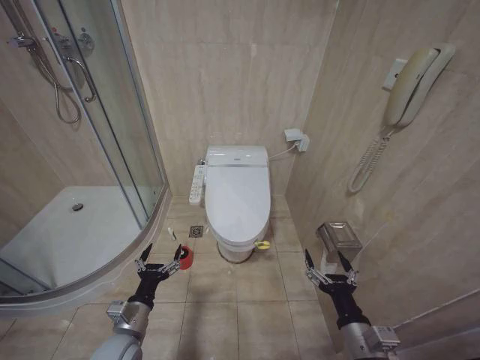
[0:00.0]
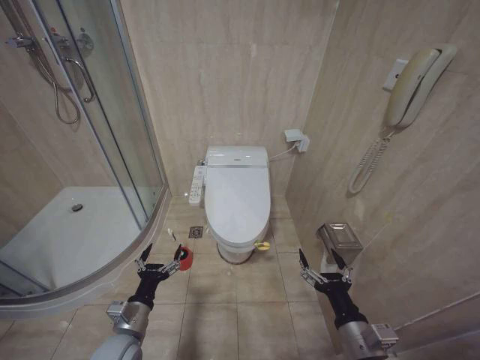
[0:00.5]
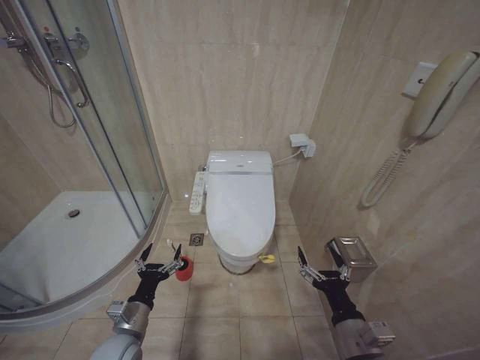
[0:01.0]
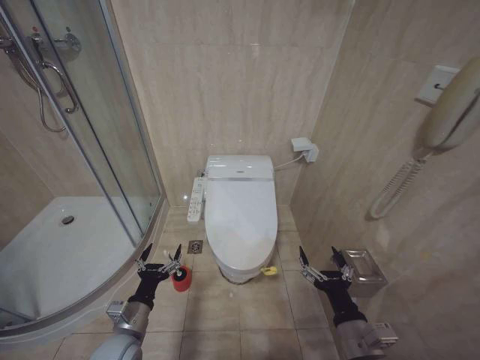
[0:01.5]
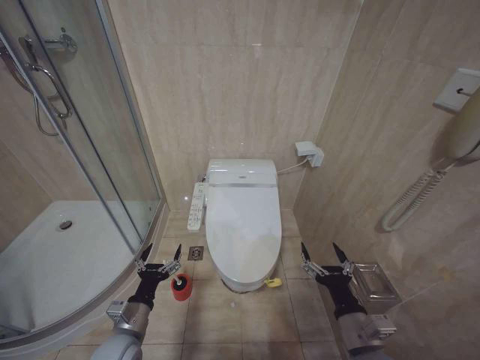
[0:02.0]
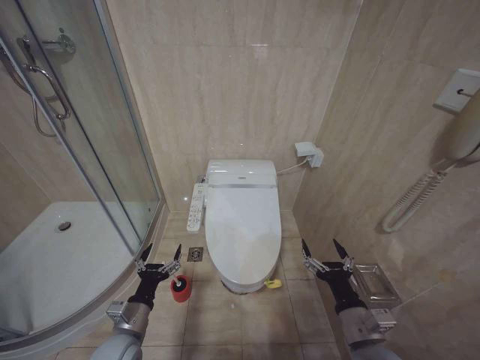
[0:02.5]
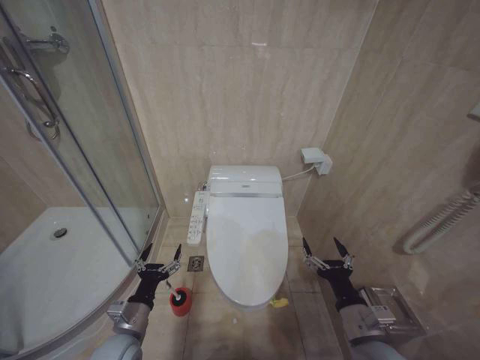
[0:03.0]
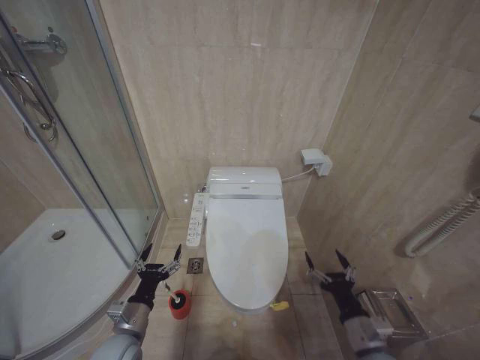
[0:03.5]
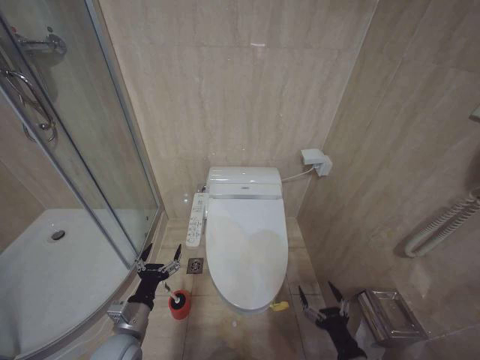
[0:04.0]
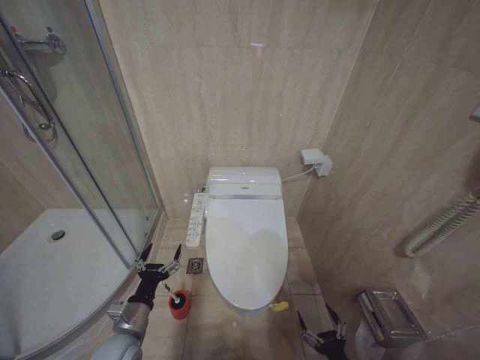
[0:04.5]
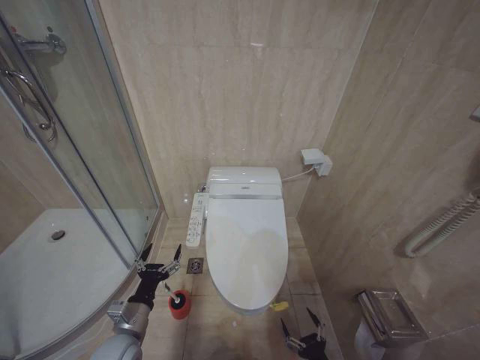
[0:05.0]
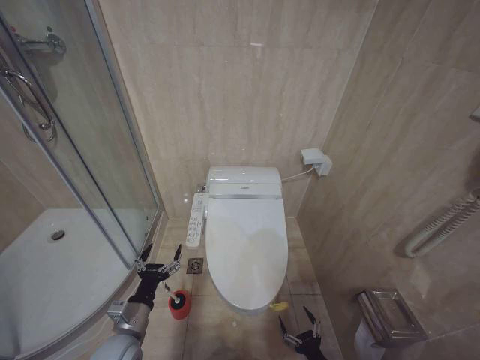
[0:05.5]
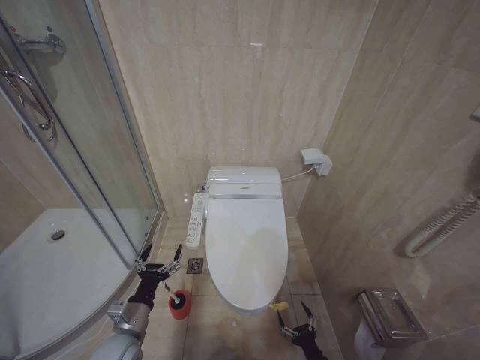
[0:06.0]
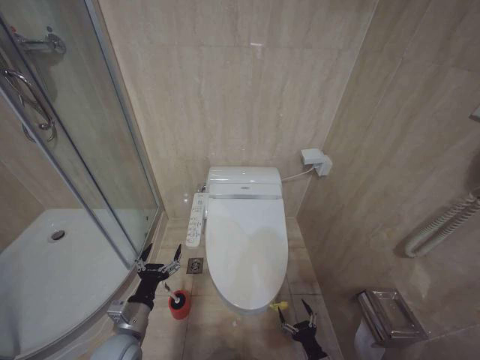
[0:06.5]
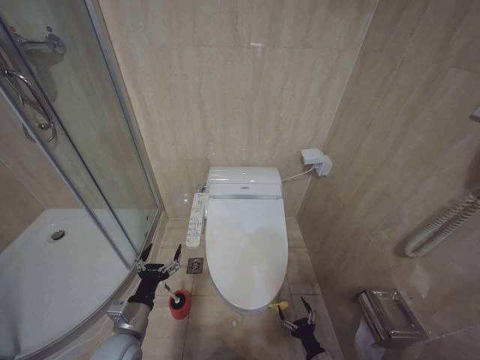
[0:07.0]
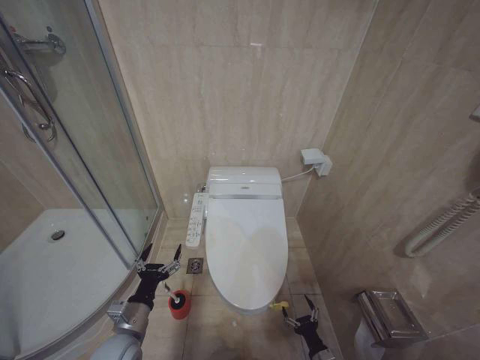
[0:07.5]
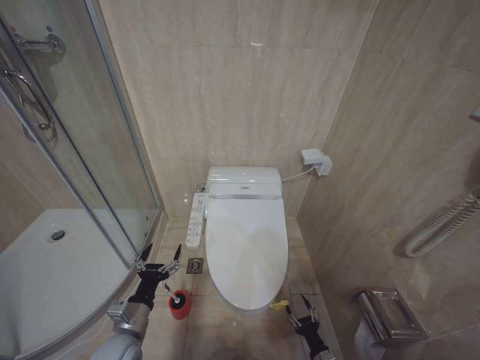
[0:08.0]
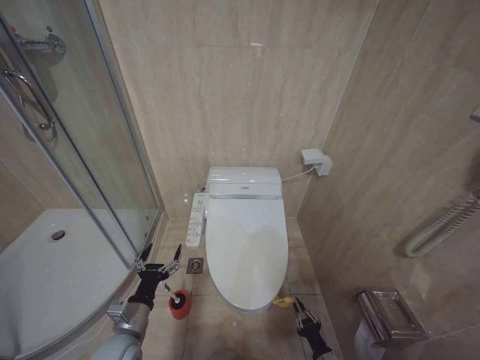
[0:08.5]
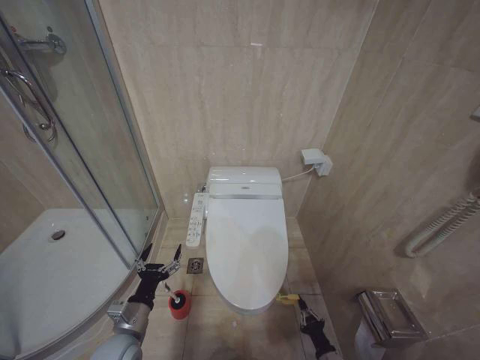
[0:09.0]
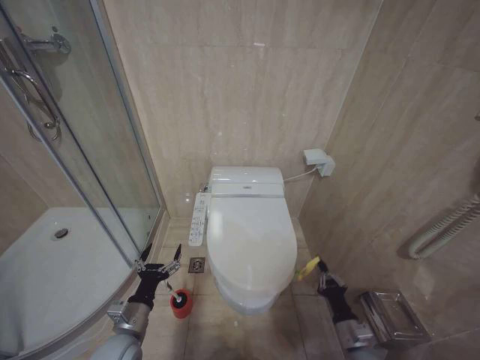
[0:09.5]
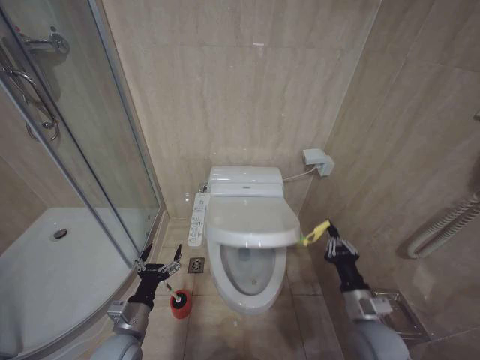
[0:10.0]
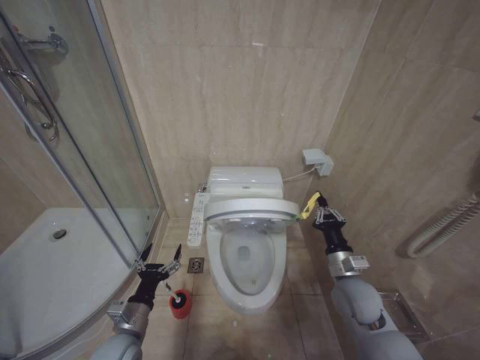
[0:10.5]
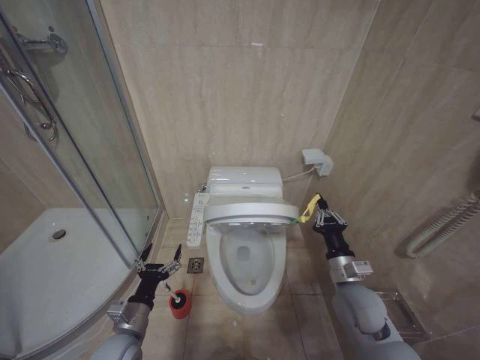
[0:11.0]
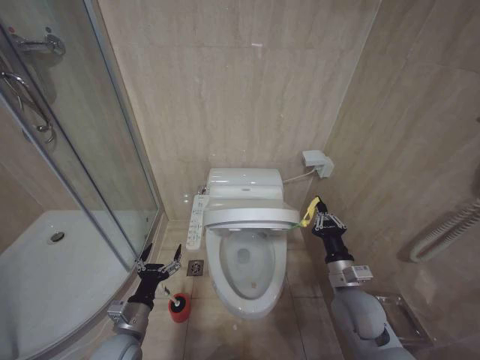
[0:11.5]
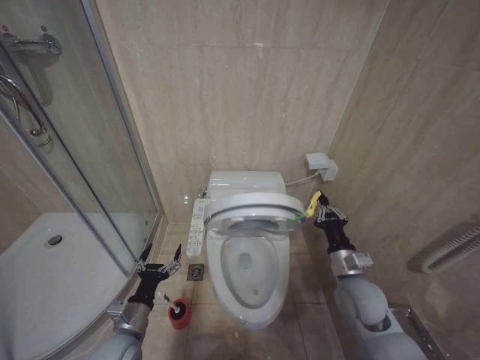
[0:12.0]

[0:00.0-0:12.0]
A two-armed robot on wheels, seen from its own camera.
Task of the whole recording: Open the toilet lid, clean the toilet bowl with a toilet brush, close the toilet lid, and flush.
0:02.0 to 0:04.0: The right gripper moves downward, some 10 cm.
0:04.0 to 0:06.0: The right gripper is displaced downward by roughly 20 cm.
0:08.0 to 0:10.0: The right gripper heads upward, covering some 25 cm, and closes.
0:10.0 to 0:12.0: The right gripper moves forward and upward, approximately 10 cm.

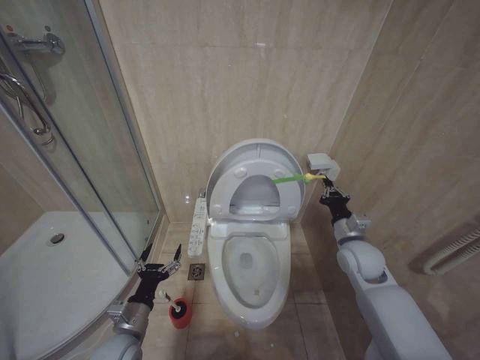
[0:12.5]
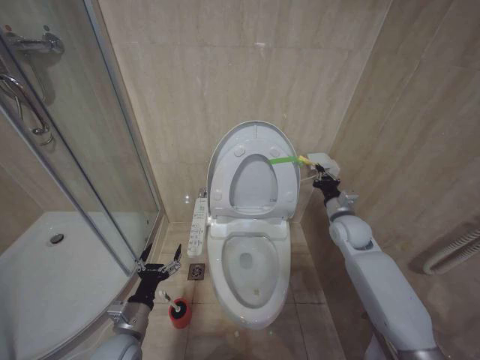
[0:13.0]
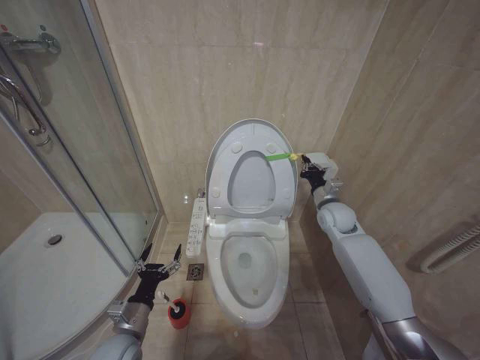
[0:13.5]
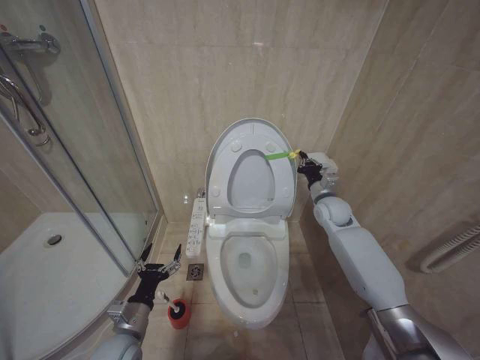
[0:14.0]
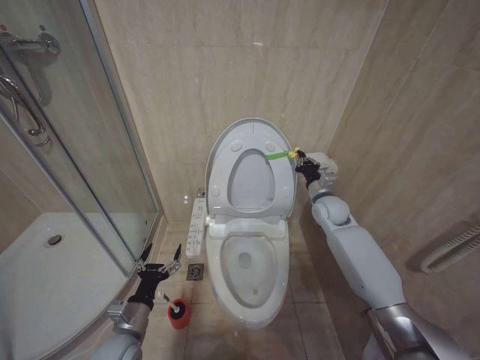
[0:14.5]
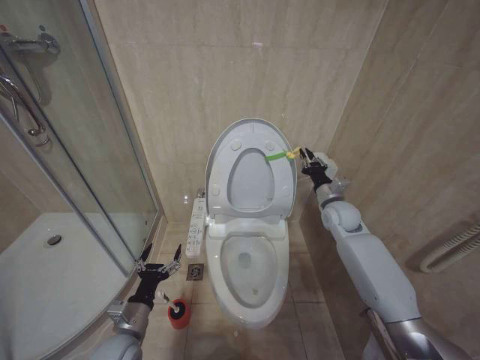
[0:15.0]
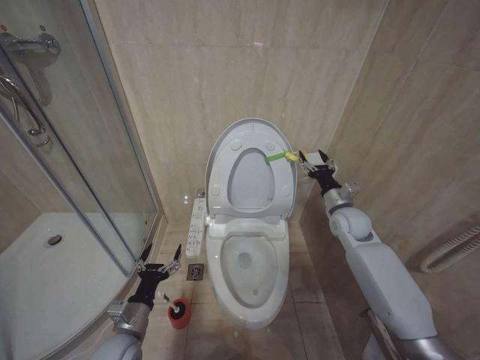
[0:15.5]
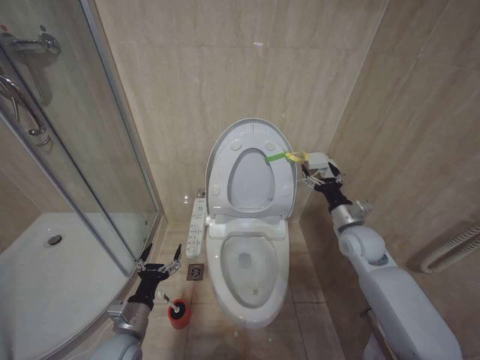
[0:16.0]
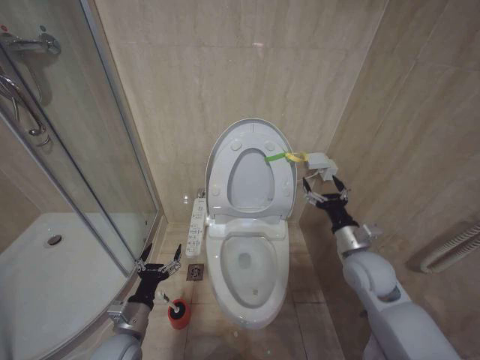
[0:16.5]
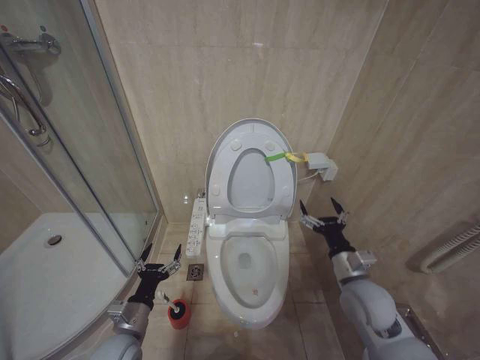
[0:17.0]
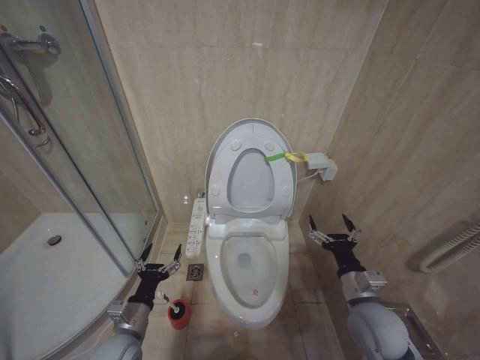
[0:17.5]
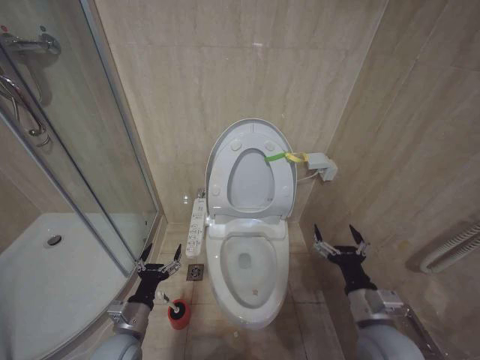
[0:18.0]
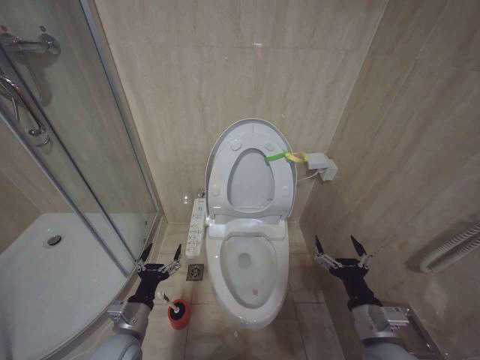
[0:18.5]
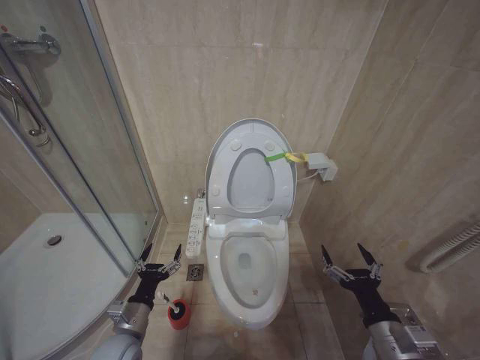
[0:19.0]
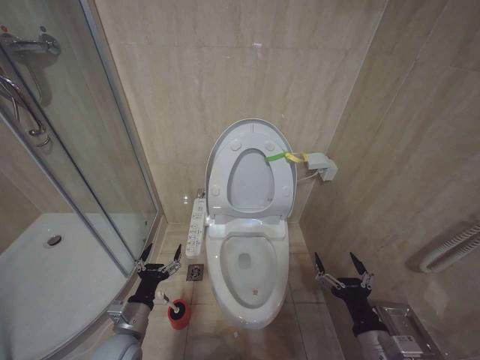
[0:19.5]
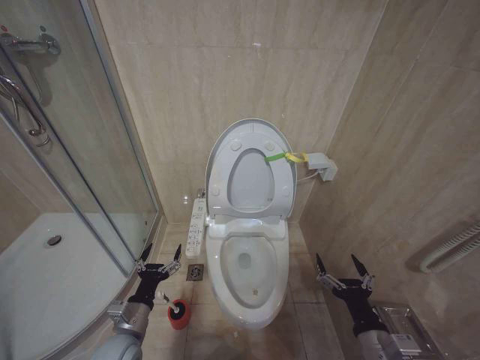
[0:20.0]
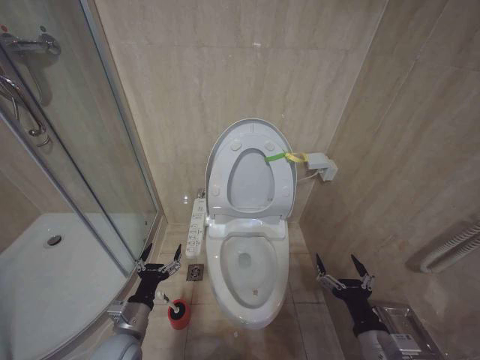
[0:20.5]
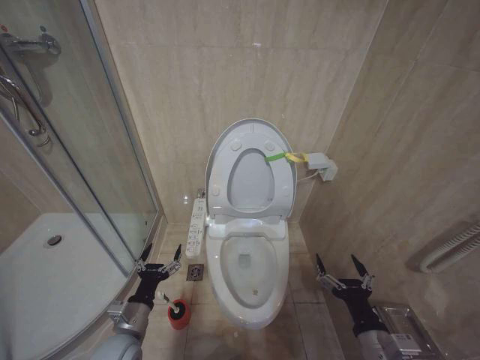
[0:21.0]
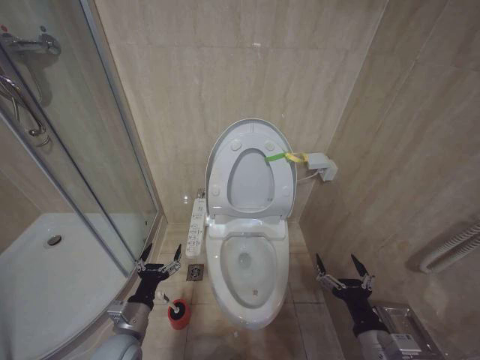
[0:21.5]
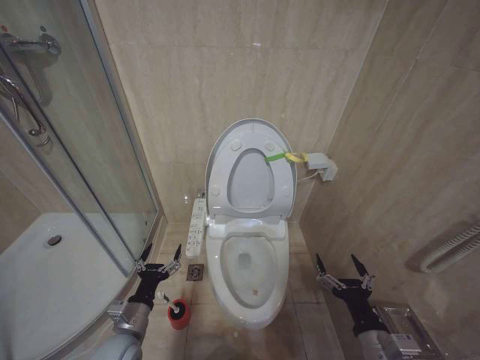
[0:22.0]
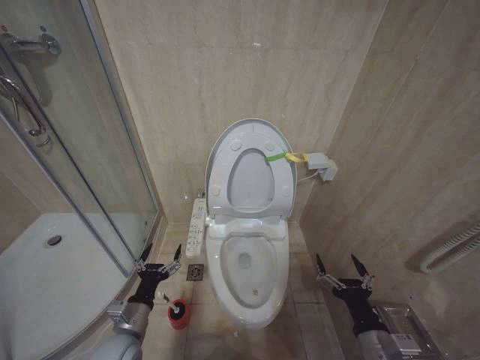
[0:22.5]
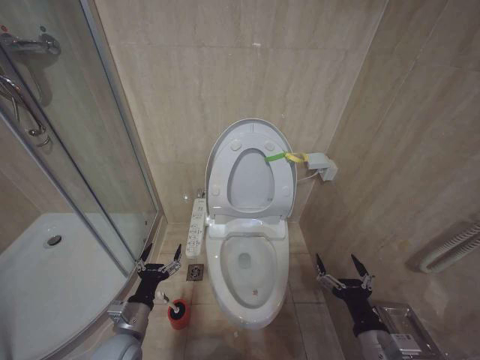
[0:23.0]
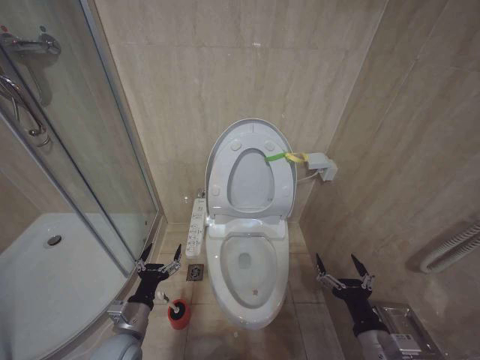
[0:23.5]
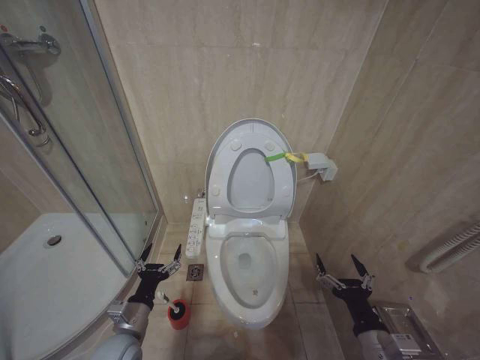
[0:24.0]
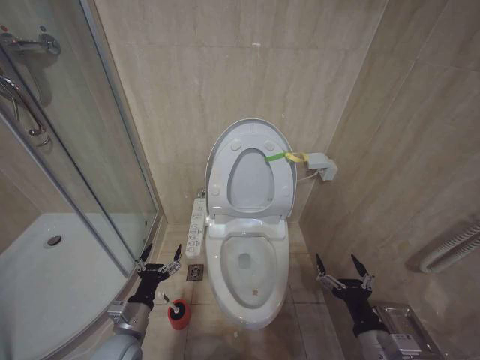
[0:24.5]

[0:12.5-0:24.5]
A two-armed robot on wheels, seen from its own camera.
Task of the whole recording: Open the toilet lid, clean the toilet bowl with a toilet brush, close the toilet lid, and flush.
0:12.5 to 0:14.5: The right gripper is displaced forward by approximately 15 cm.
0:14.5 to 0:16.5: The right gripper shifts some 15 cm backward, and opens its fingers.
0:16.5 to 0:18.5: The right gripper moves backward and downward, roughly 20 cm.
0:18.5 to 0:20.5: The grippers stay close to where they were, moving slightly.
0:20.5 to 0:24.5: Neither gripper changes place.

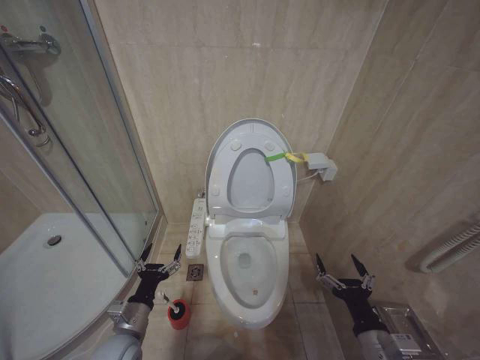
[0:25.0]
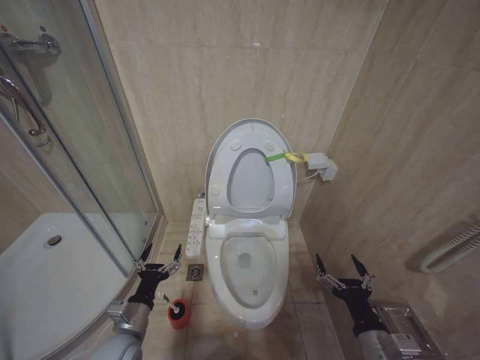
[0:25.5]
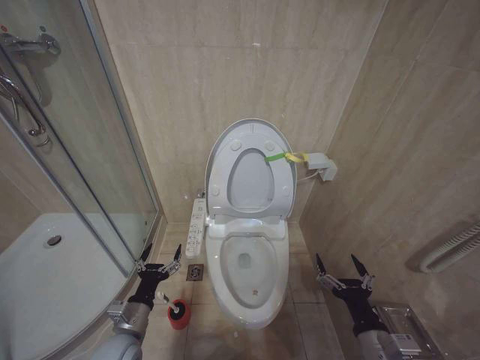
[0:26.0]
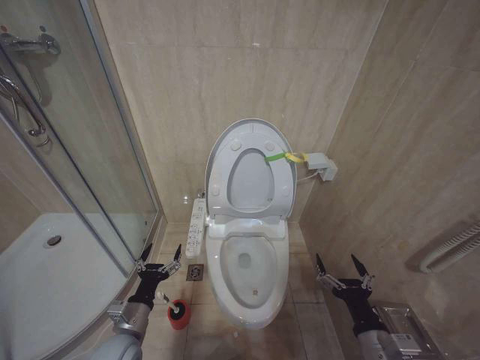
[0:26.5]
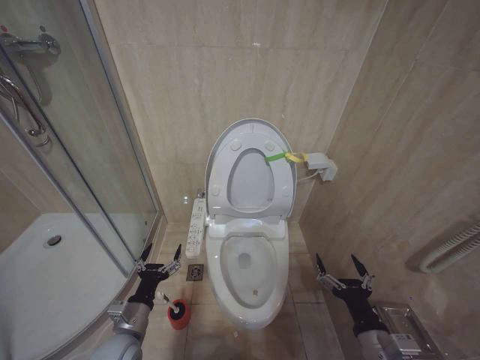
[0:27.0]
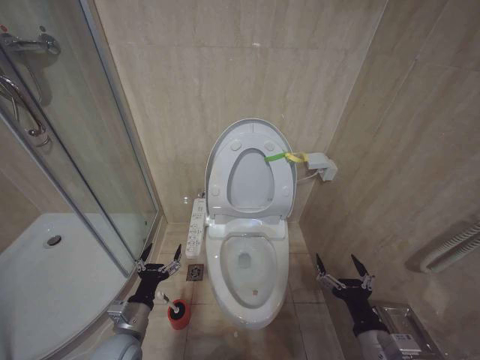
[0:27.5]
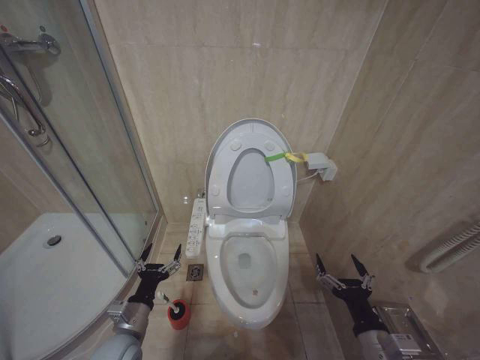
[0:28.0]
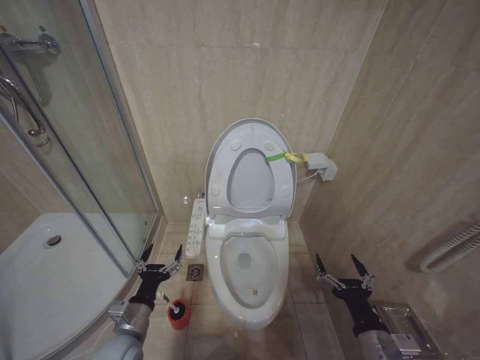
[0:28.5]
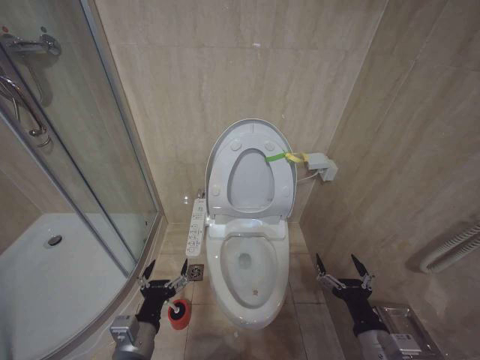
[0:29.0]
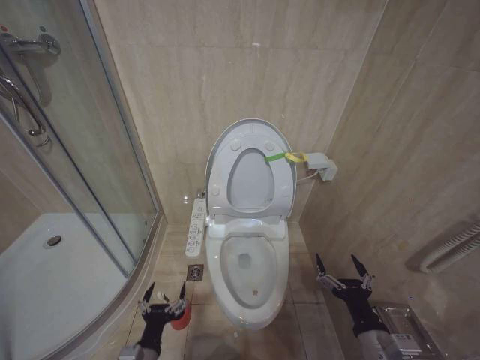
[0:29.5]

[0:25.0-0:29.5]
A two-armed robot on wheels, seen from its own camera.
Task of the whole recording: Open the toilet lid, clean the toilet bowl with a toilet brush, close the toilet lid, and flush.
0:25.0 to 0:27.0: The two grippers keep their place.
0:27.0 to 0:29.5: The left gripper travels backward by roughly 5 cm.
